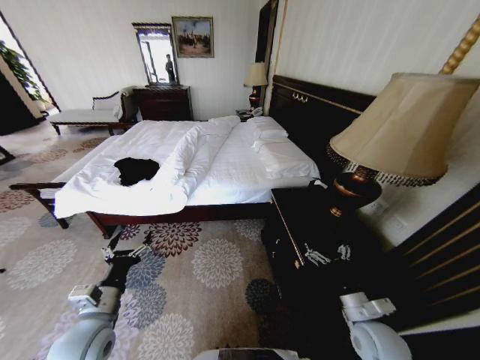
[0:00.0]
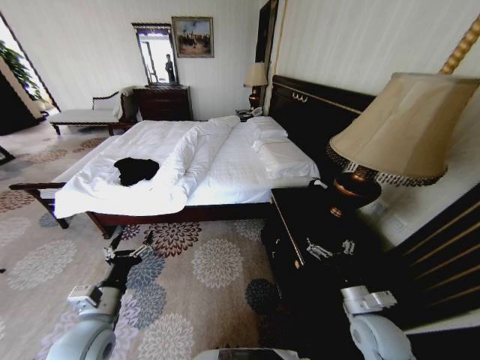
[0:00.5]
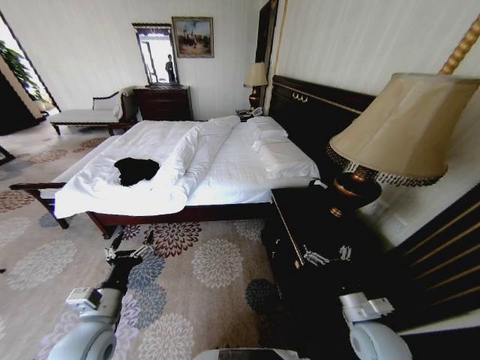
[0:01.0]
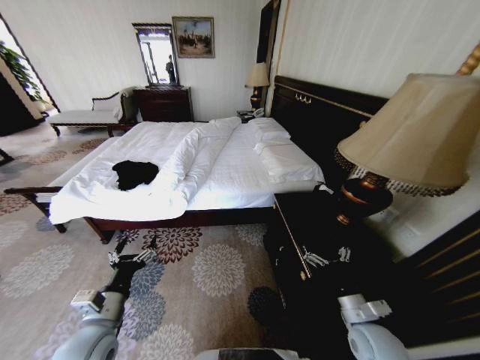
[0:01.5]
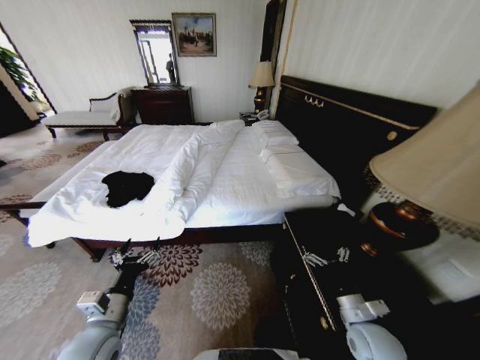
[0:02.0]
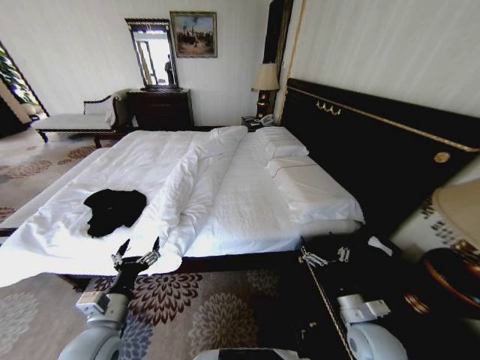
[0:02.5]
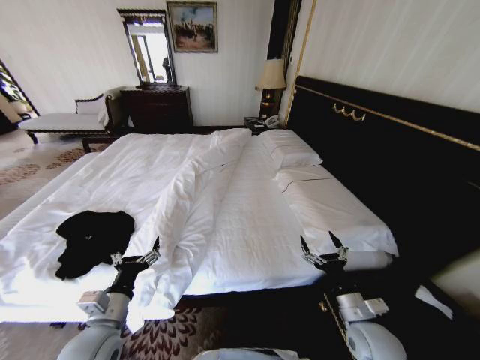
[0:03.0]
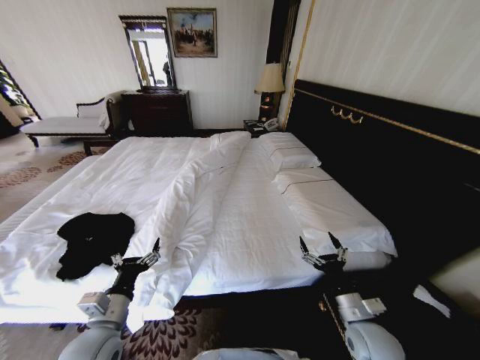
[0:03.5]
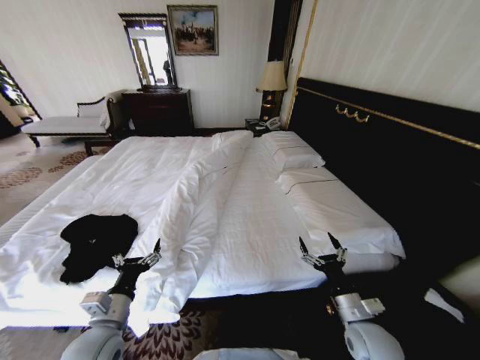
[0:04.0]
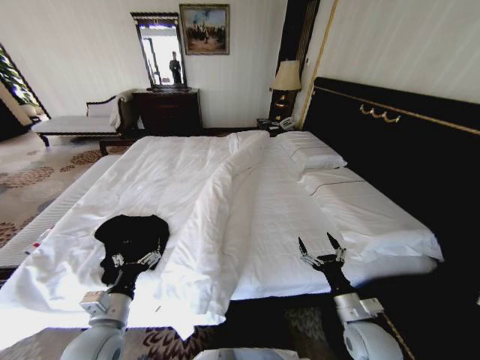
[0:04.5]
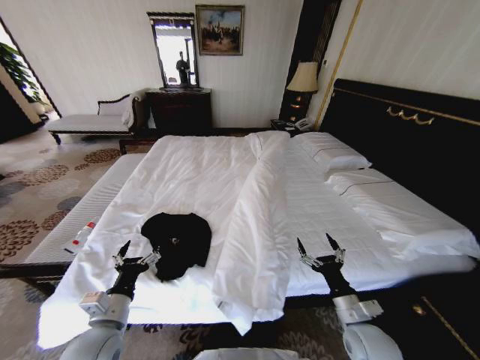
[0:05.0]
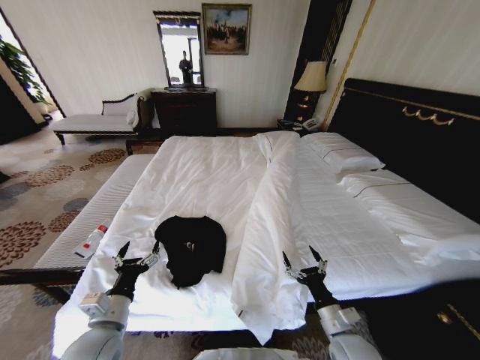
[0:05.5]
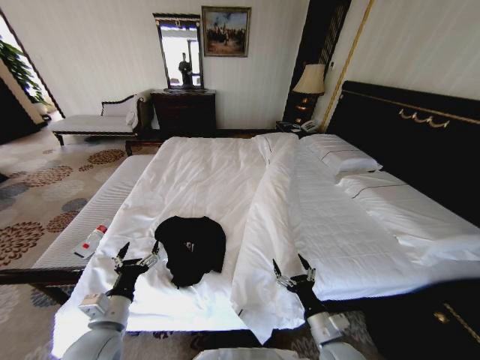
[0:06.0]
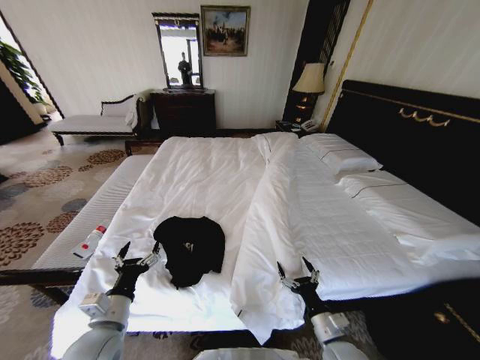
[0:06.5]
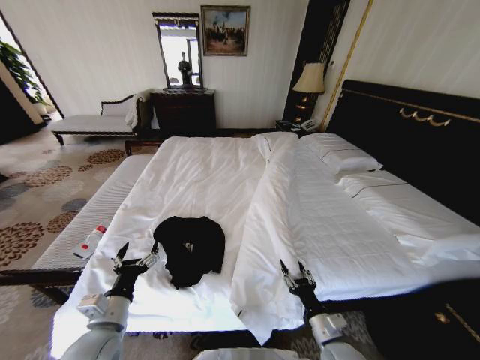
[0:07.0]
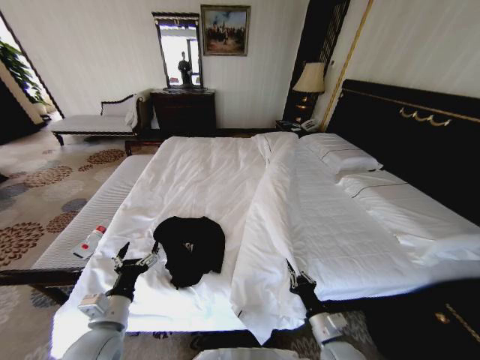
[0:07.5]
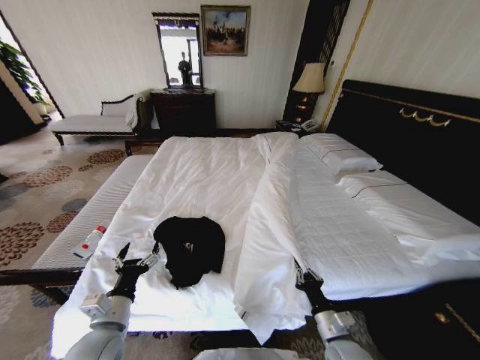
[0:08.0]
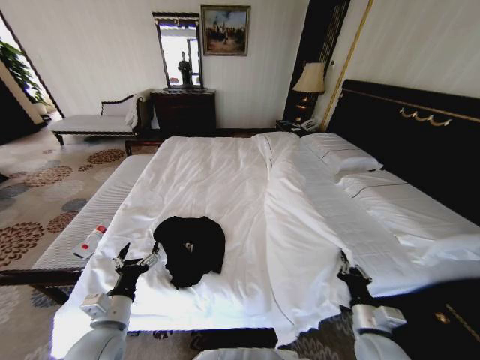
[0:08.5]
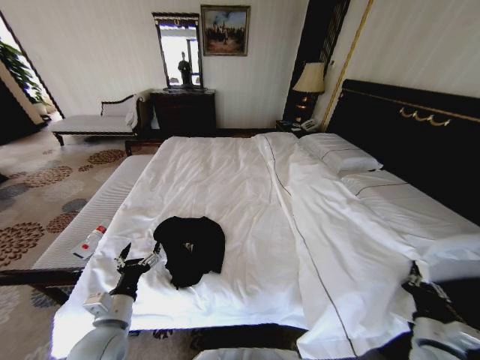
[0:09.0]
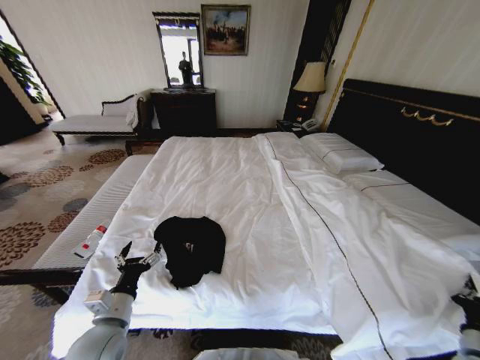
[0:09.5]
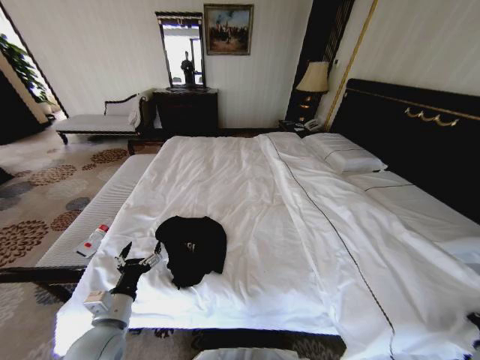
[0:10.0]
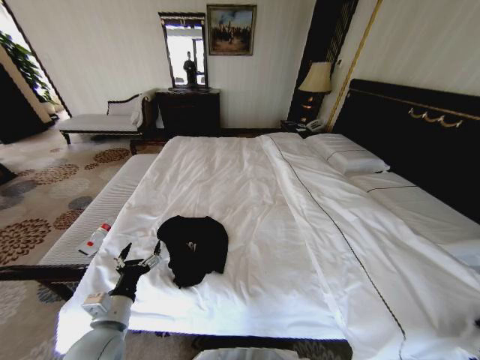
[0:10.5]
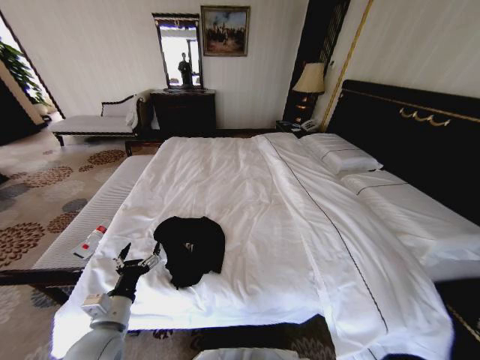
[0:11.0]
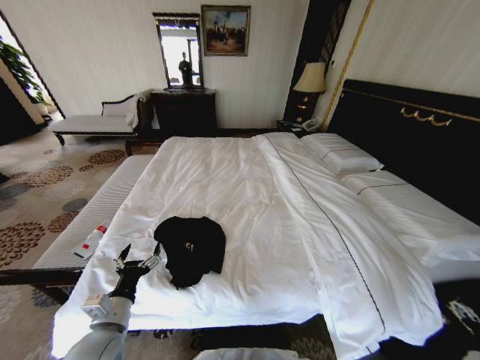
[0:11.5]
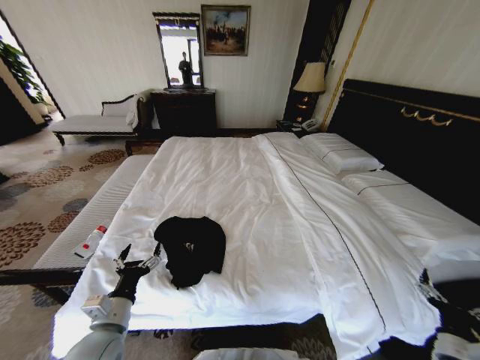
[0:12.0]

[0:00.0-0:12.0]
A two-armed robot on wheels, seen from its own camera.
Task of the whole recording: Fold the clothes on the bed.
0:04.0 to 0:06.0: The right gripper travels to the left by about 5 cm.
0:06.0 to 0:08.0: The right gripper closes.
0:08.0 to 0:10.0: The right gripper goes some 30 cm to the right.
0:10.0 to 0:12.0: The right gripper goes about 5 cm to the left, and opens up.

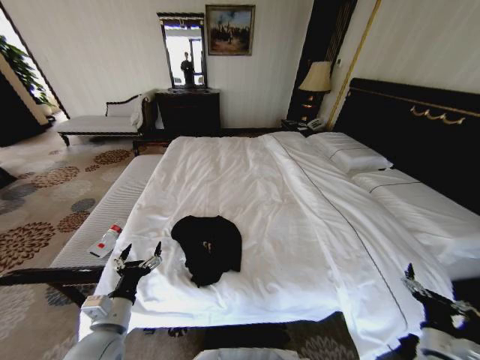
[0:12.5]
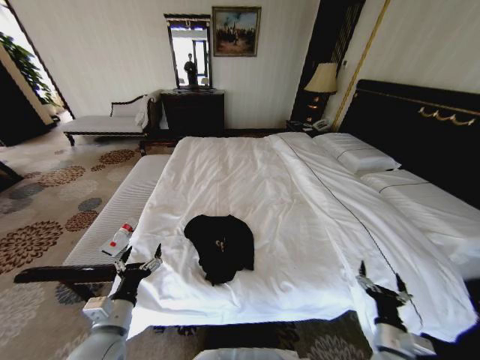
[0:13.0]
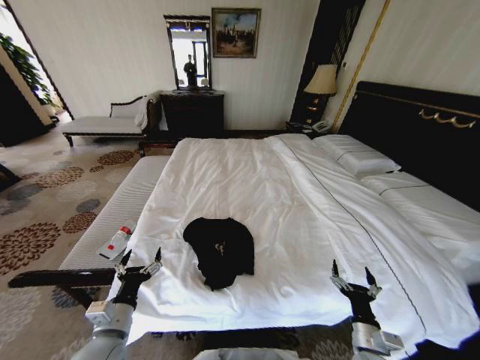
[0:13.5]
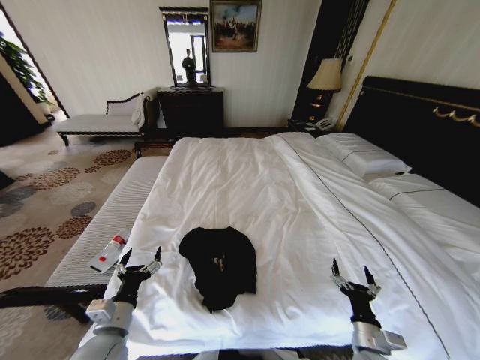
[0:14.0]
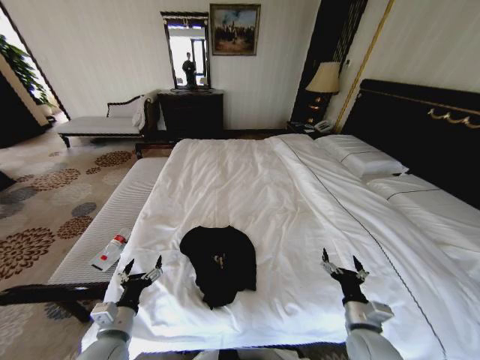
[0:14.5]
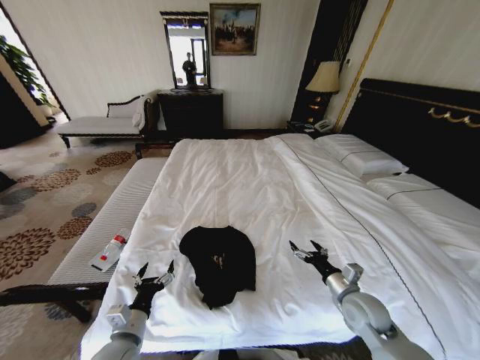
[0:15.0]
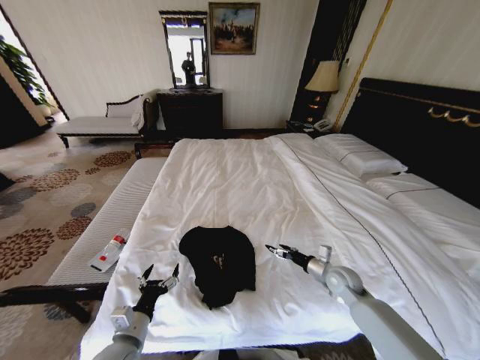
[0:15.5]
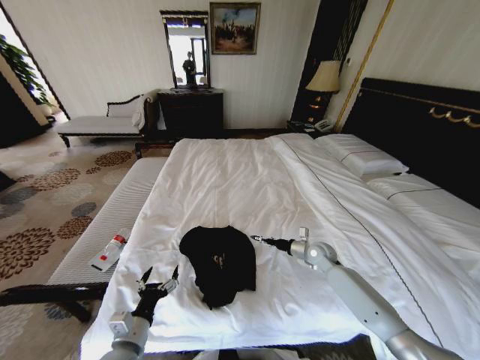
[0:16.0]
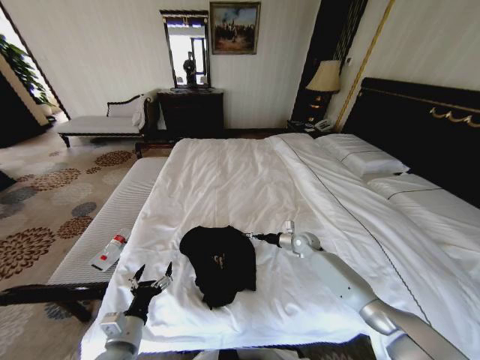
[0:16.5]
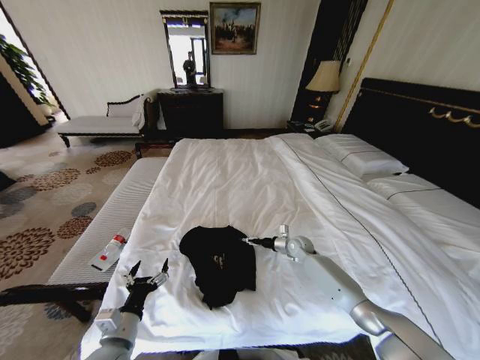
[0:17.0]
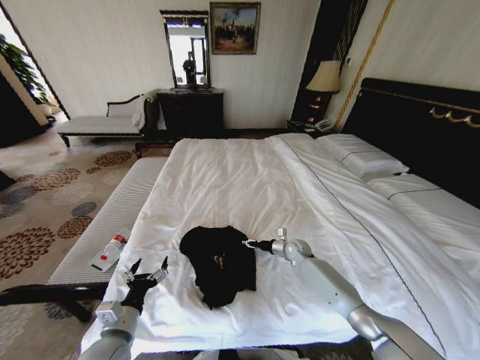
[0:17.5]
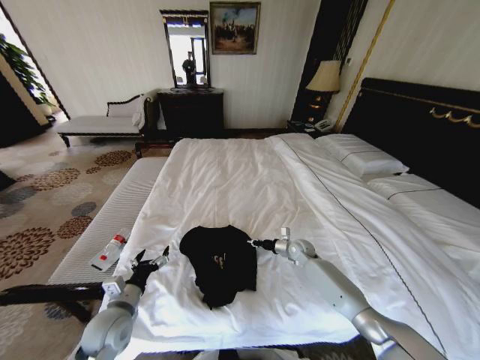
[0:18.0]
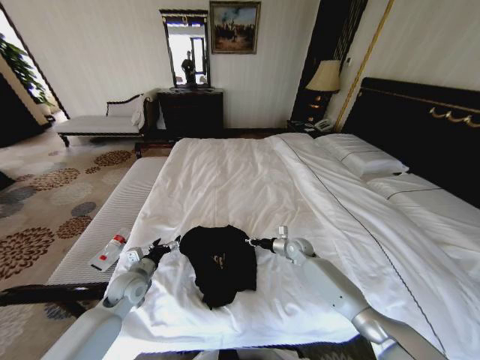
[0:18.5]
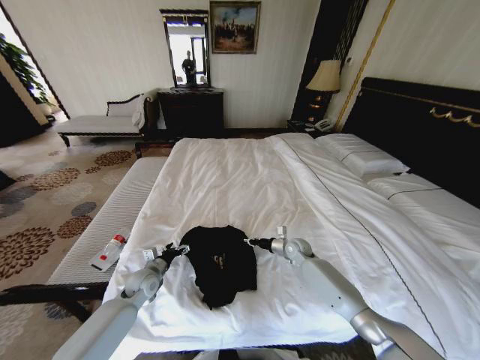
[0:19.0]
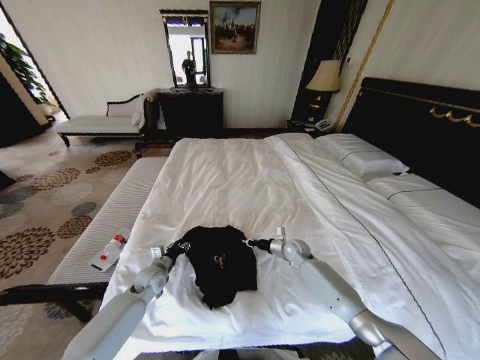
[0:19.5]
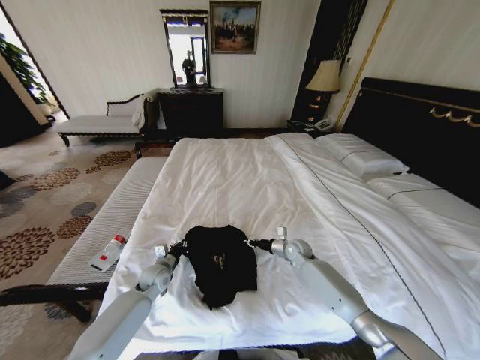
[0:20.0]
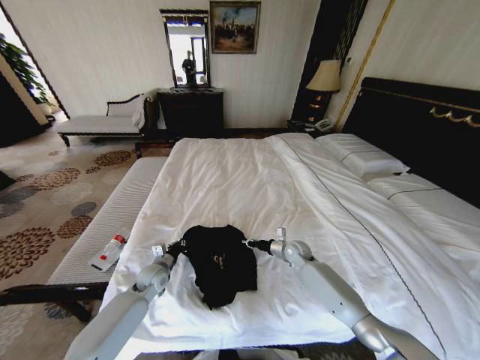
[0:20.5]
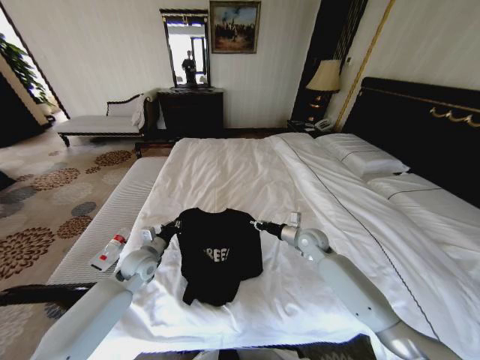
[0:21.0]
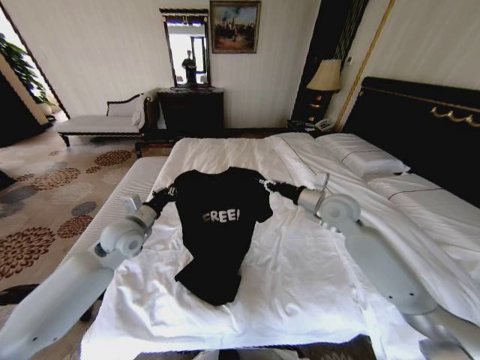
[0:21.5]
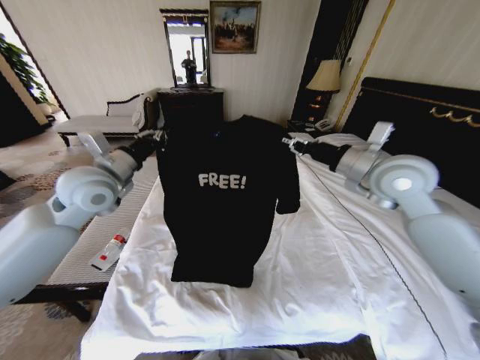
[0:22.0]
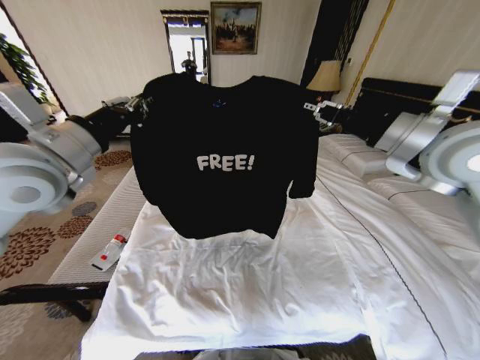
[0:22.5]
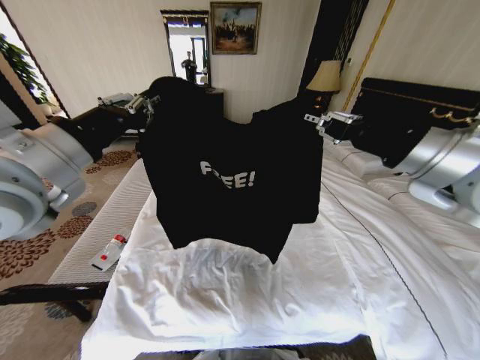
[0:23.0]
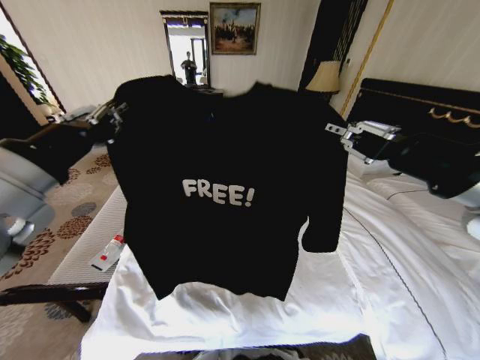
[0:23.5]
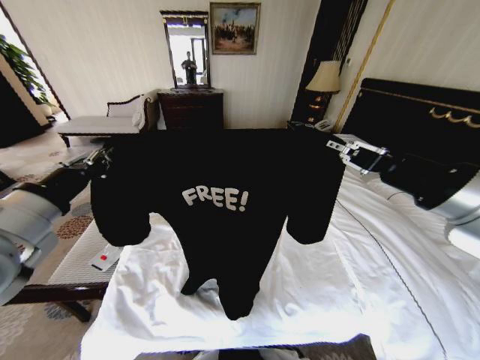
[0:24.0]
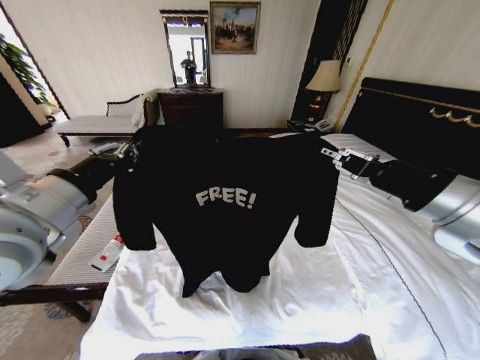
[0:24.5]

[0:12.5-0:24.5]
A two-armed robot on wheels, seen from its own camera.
Task of the whole recording: Fold the clothes on the bed.
0:12.5 to 0:14.5: The right gripper heads to the left, covering roughly 15 cm.
0:14.5 to 0:16.5: The right gripper shifts some 30 cm forward.
0:16.5 to 0:18.5: The left gripper heads forward, covering approximately 15 cm. The right gripper closes up.
0:18.5 to 0:20.5: The left gripper shifts roughly 5 cm downward and forward, and closes up.
0:20.5 to 0:22.5: Both grippers travel together upward, about 50 cm.
0:22.5 to 0:24.5: The right gripper is displaced backward by approximately 15 cm, while the left gripper goes some 10 cm backward.

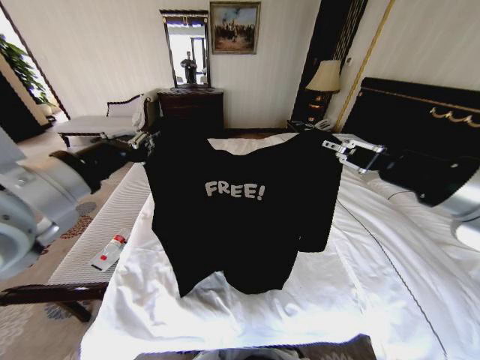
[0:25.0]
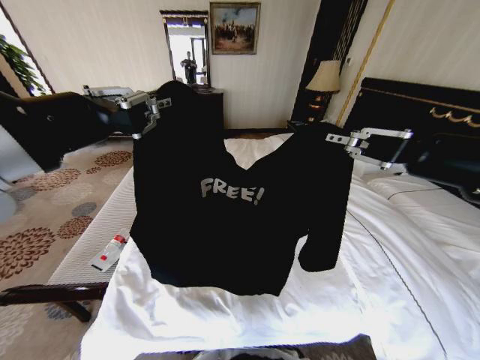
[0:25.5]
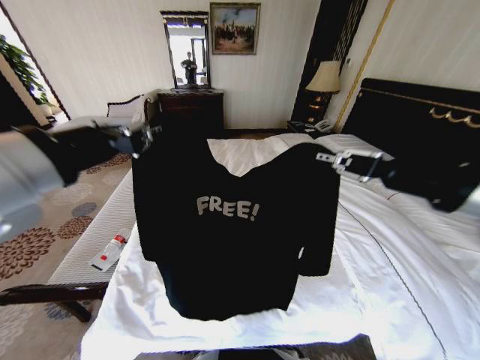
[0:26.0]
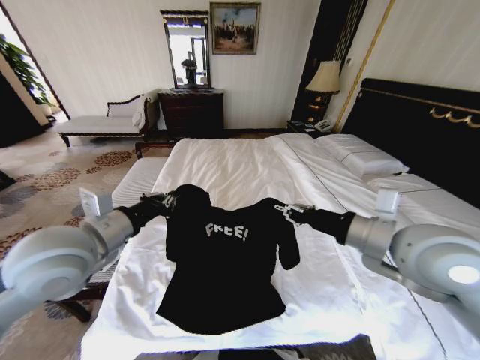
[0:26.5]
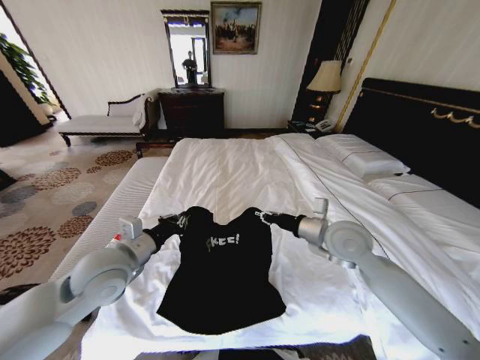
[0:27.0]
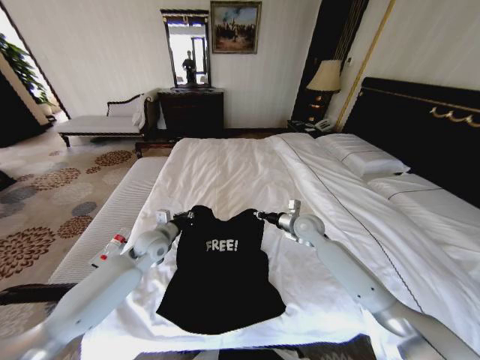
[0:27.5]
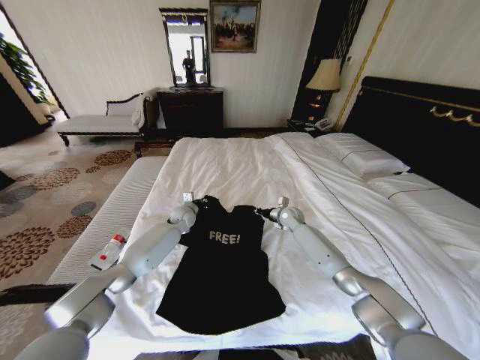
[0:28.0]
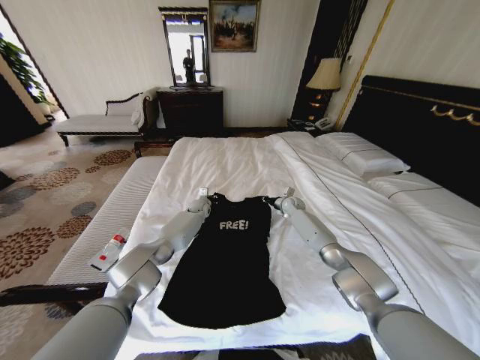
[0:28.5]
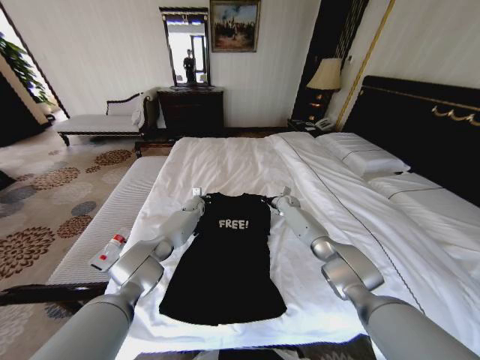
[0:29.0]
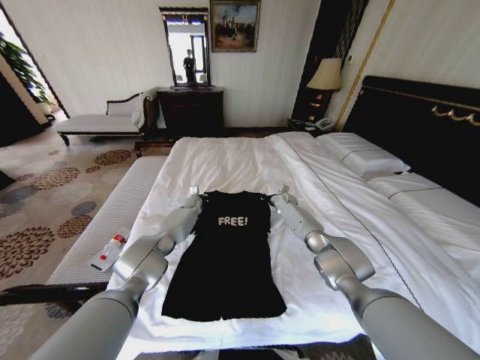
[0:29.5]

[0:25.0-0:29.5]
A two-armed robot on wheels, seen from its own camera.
Task of the whole recording: Fold the clothes on the bed.
0:25.0 to 0:27.0: The left gripper shifts about 20 cm downward. Meanwhile the right gripper shifts some 25 cm downward and forward.
0:27.0 to 0:29.5: The grippers both shift forward and downward by about 40 cm.
